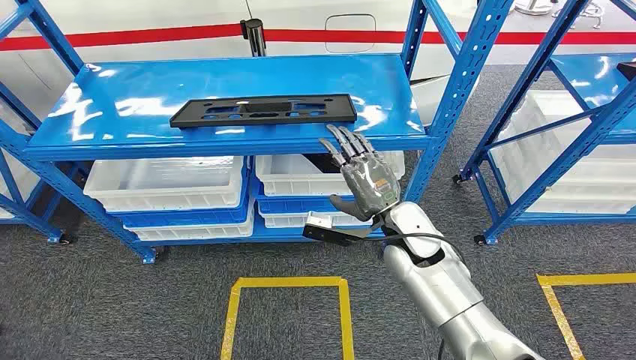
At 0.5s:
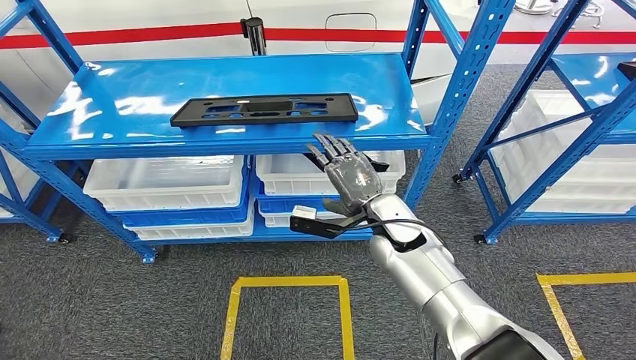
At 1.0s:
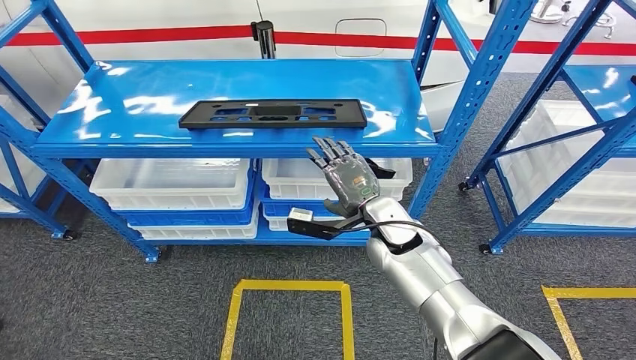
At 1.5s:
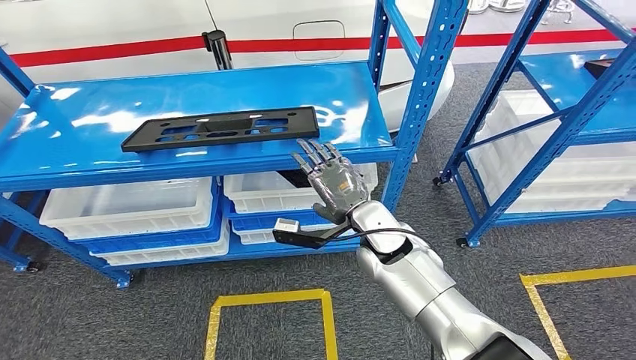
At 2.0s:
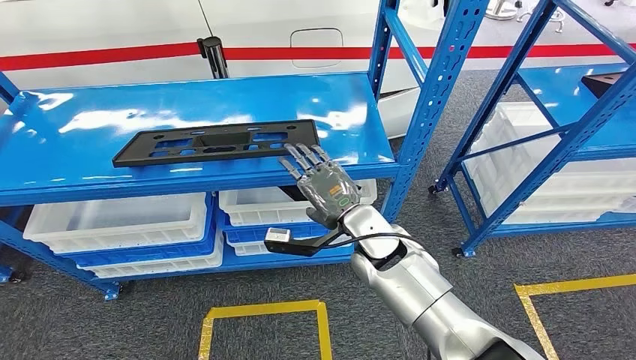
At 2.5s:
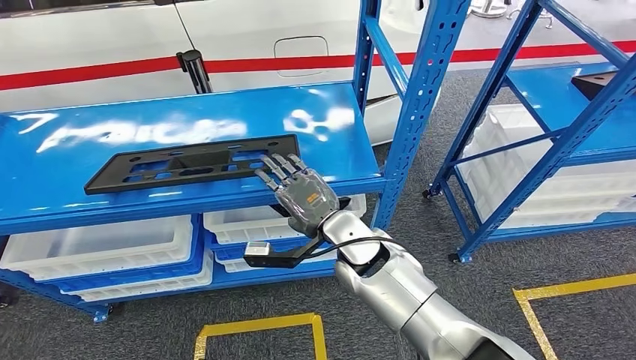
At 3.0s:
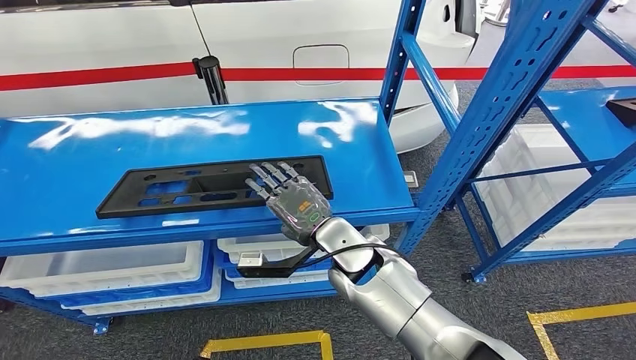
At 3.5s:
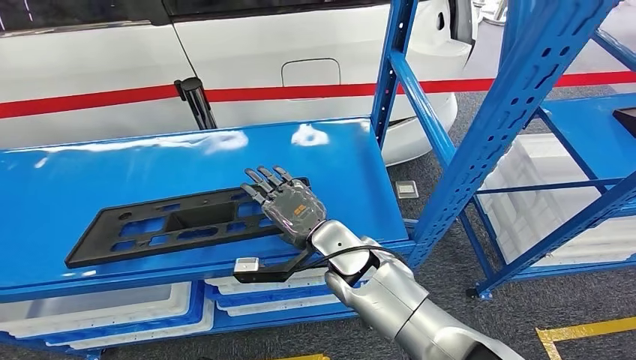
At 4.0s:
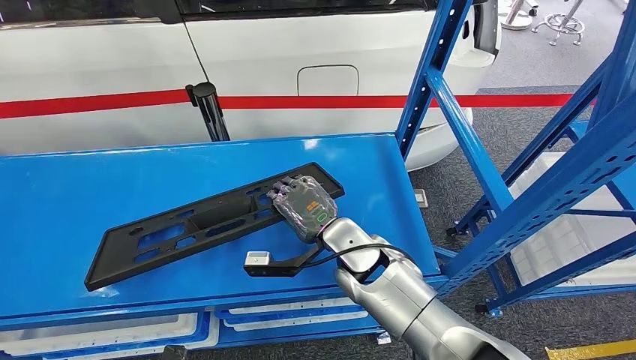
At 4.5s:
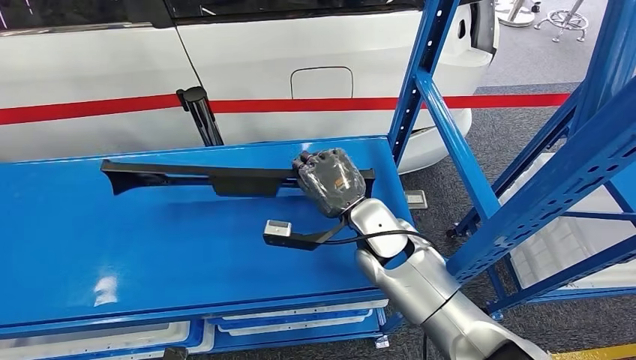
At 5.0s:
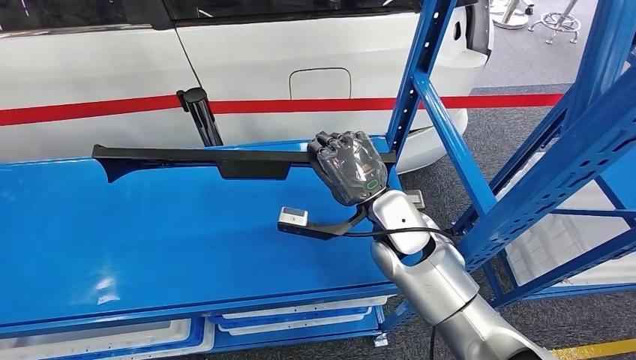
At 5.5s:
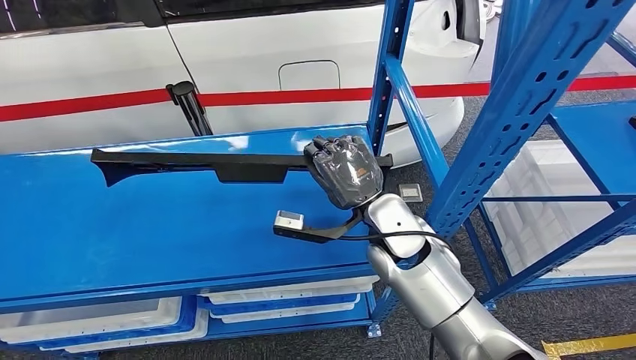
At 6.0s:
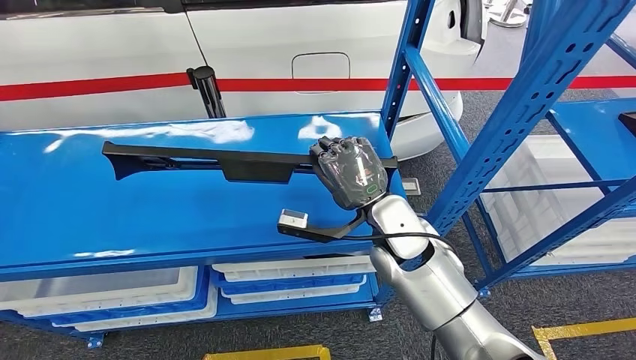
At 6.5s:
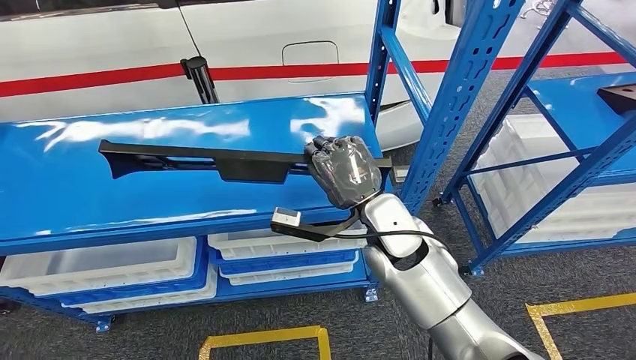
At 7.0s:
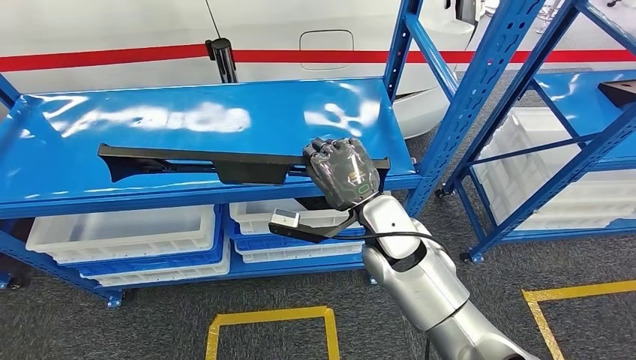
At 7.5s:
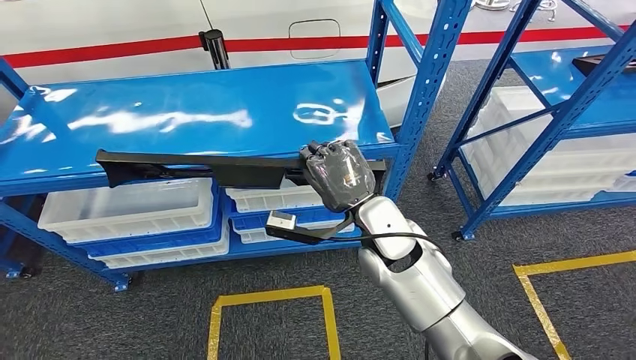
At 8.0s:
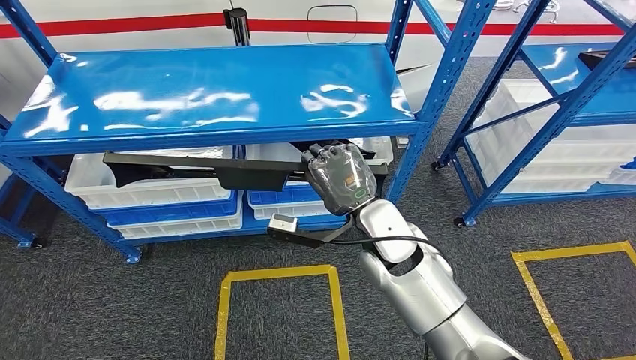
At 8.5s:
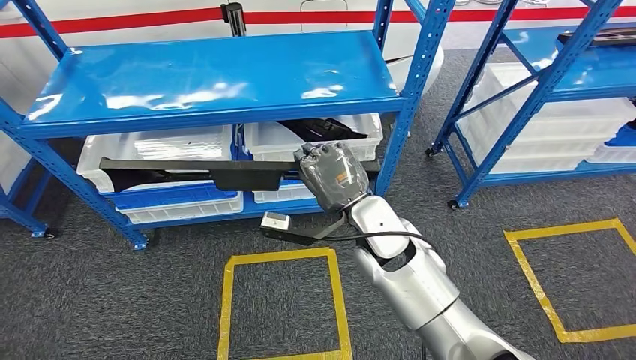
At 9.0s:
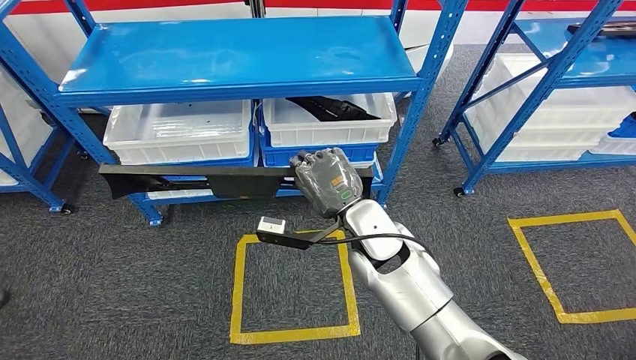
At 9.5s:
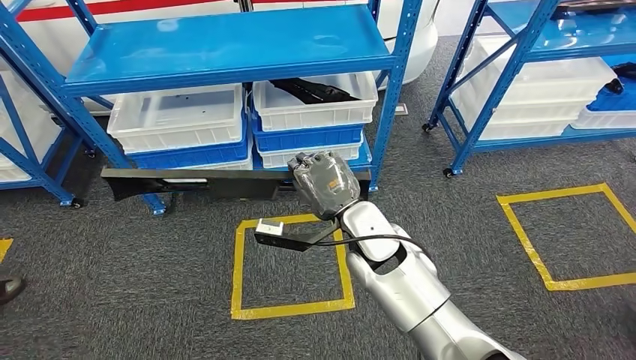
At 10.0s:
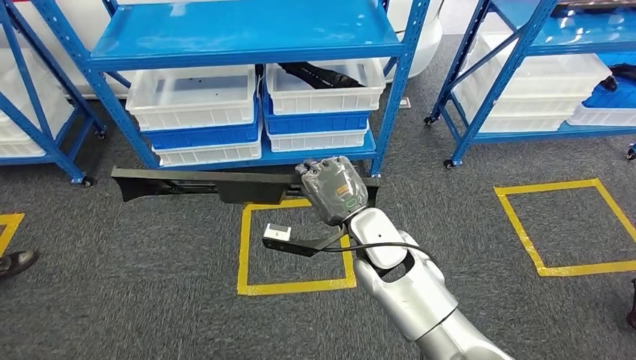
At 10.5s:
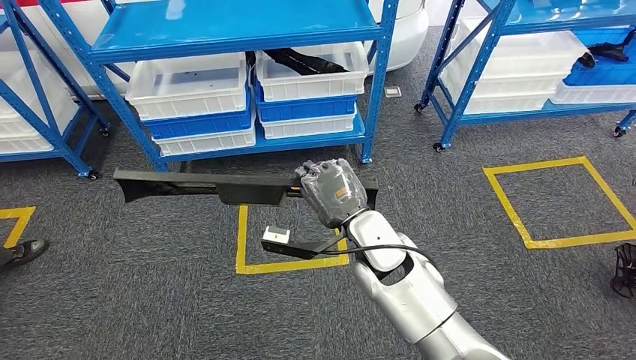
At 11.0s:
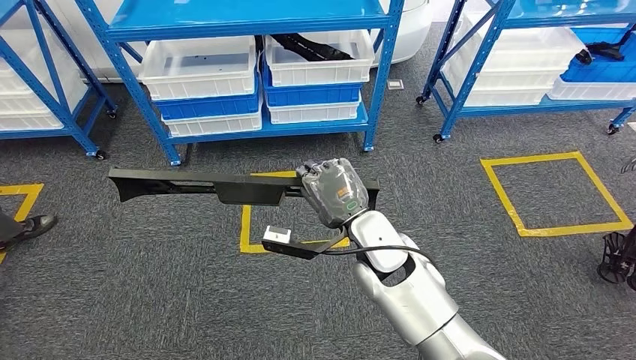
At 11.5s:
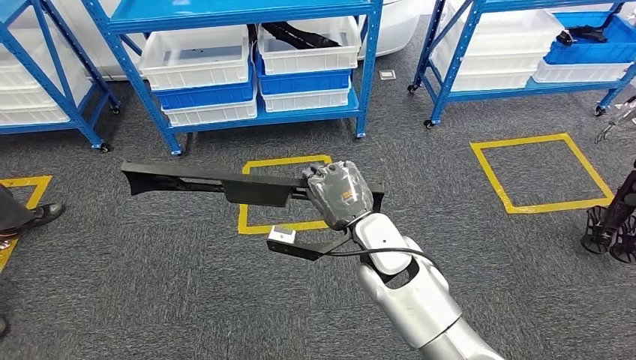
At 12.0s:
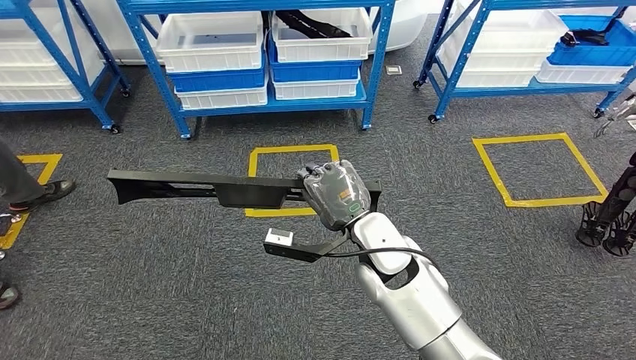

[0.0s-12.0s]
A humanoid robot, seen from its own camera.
Step, 0.0s to 8.5s: Pick up the large material from the shelf.

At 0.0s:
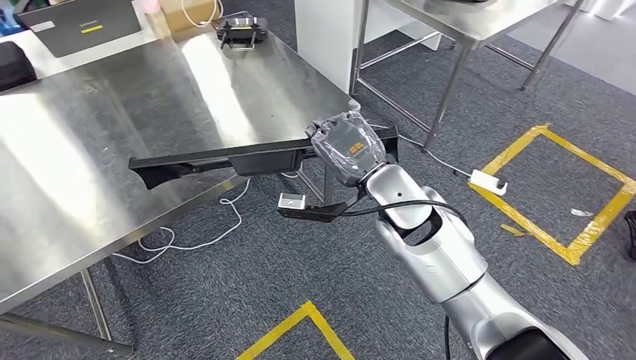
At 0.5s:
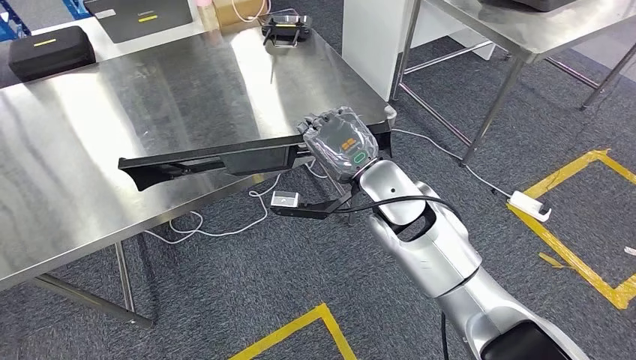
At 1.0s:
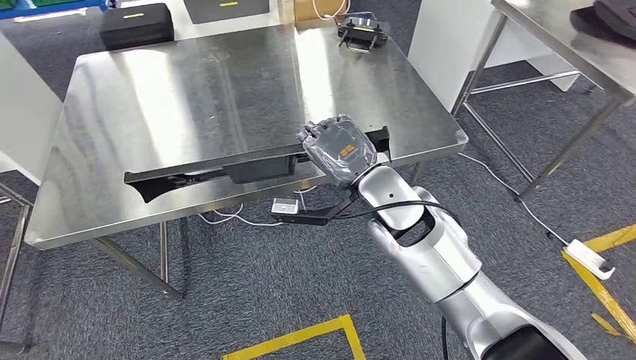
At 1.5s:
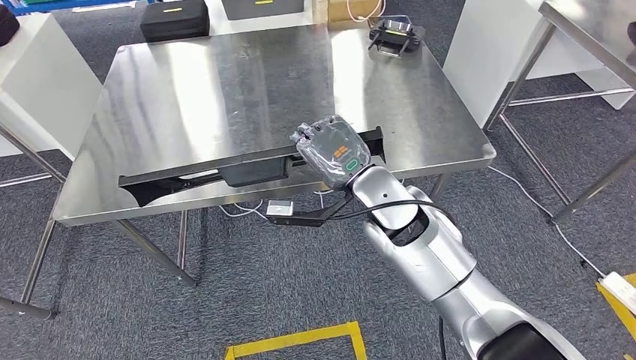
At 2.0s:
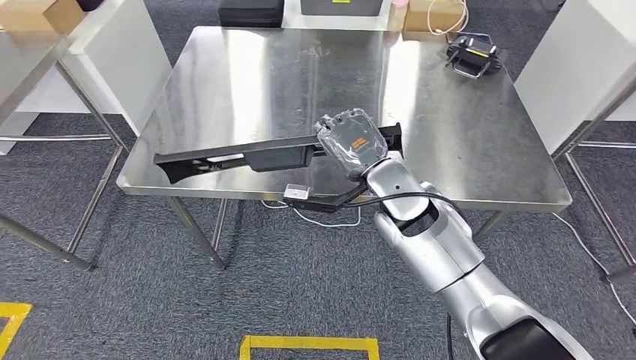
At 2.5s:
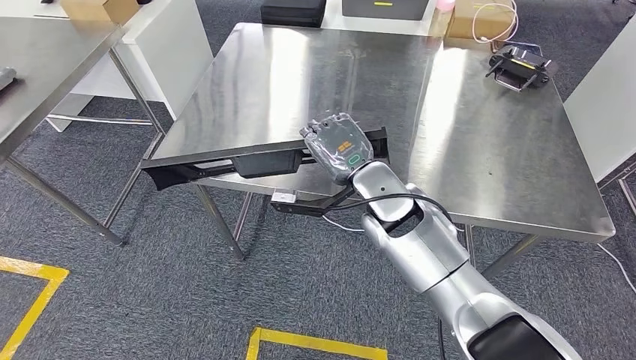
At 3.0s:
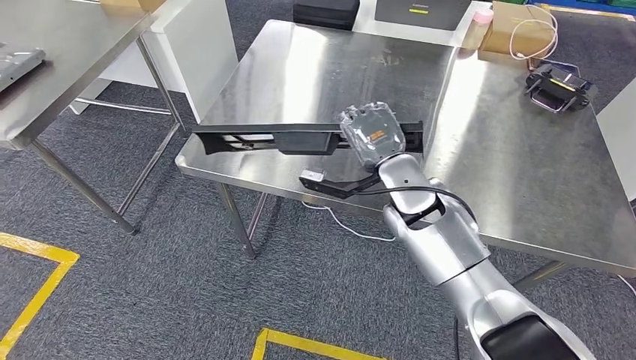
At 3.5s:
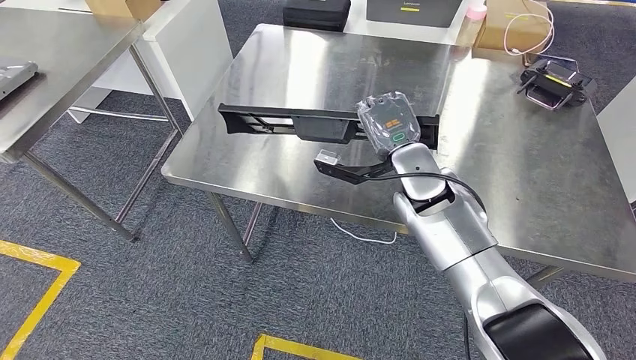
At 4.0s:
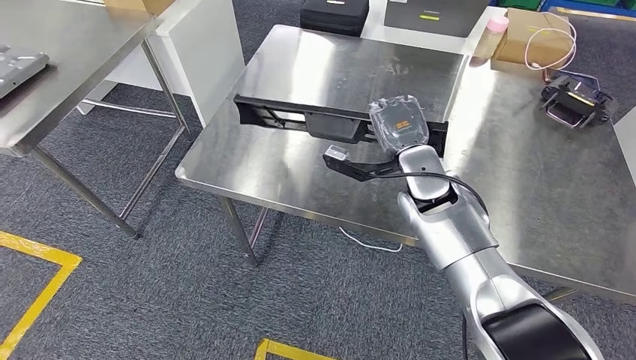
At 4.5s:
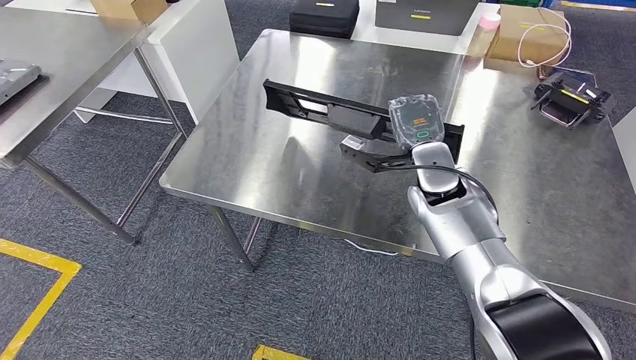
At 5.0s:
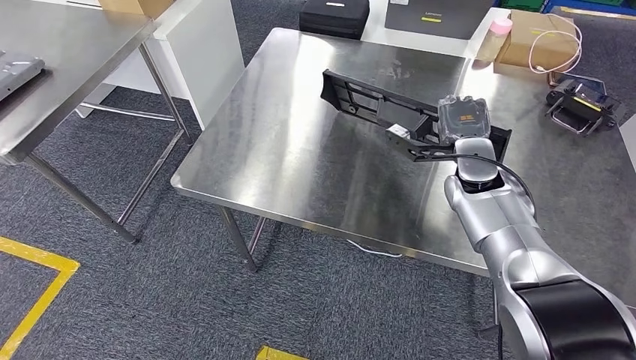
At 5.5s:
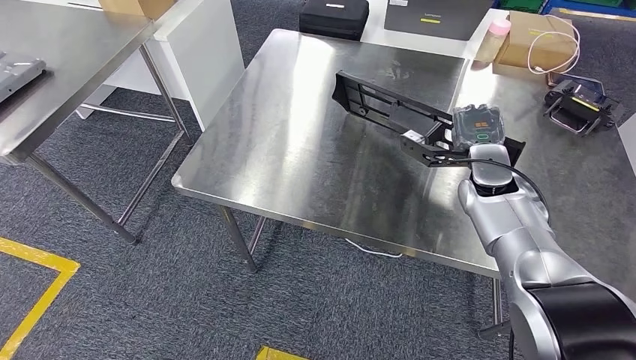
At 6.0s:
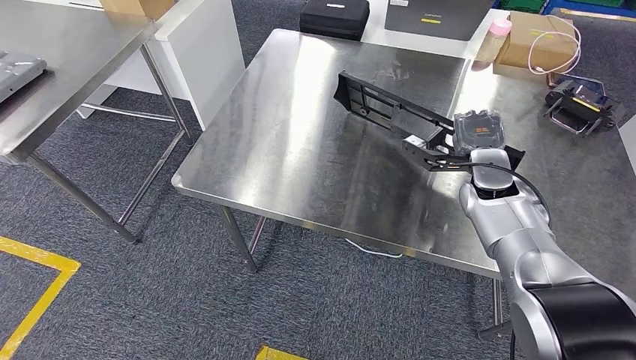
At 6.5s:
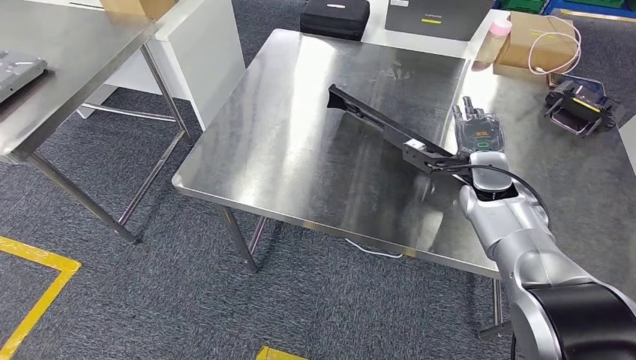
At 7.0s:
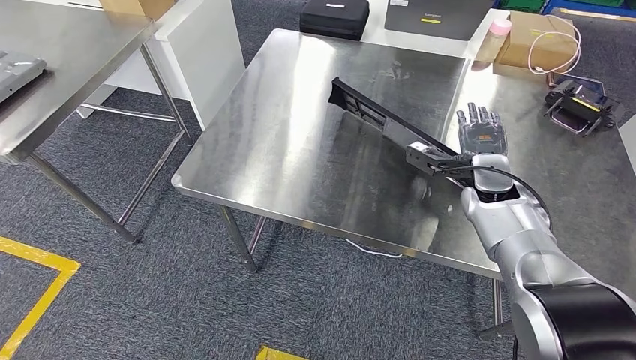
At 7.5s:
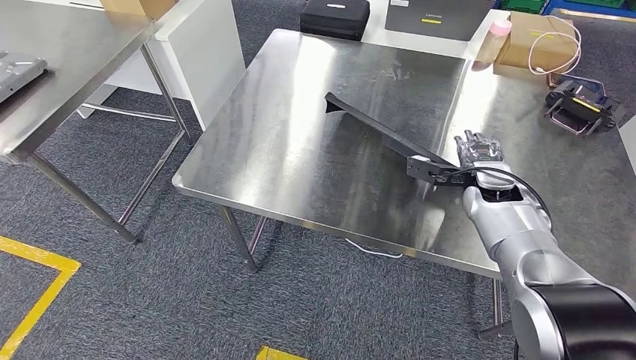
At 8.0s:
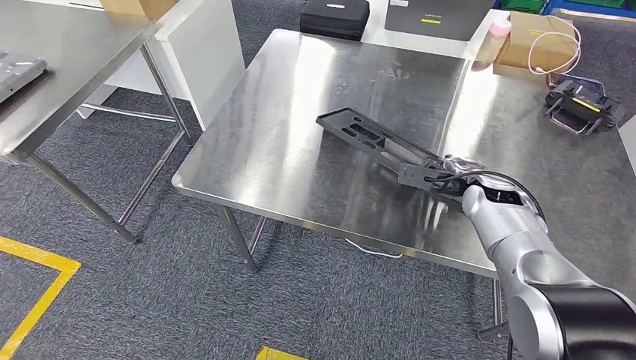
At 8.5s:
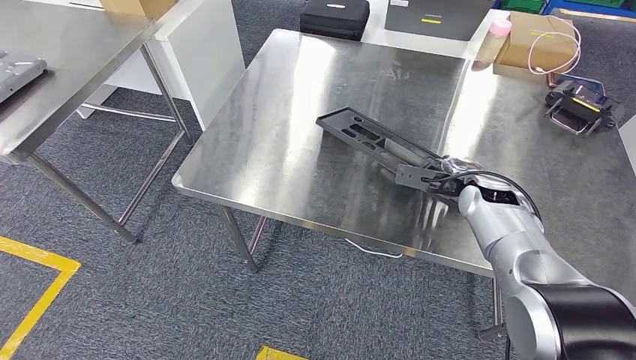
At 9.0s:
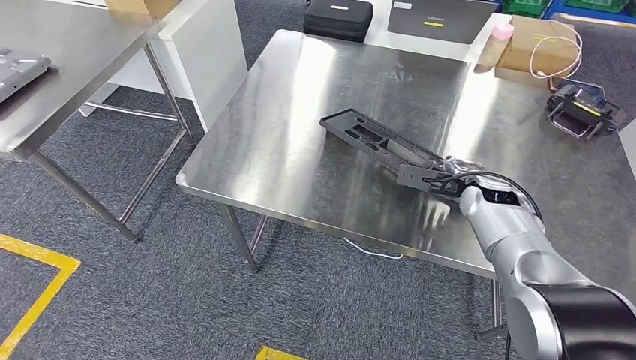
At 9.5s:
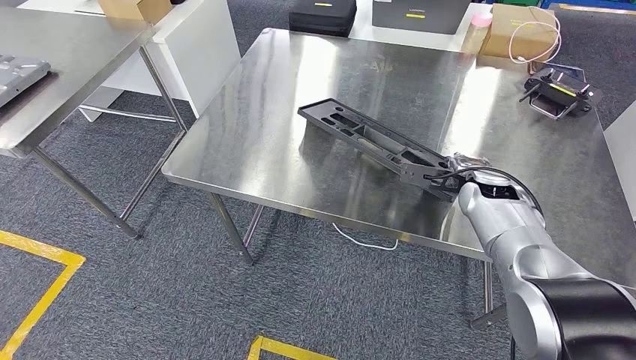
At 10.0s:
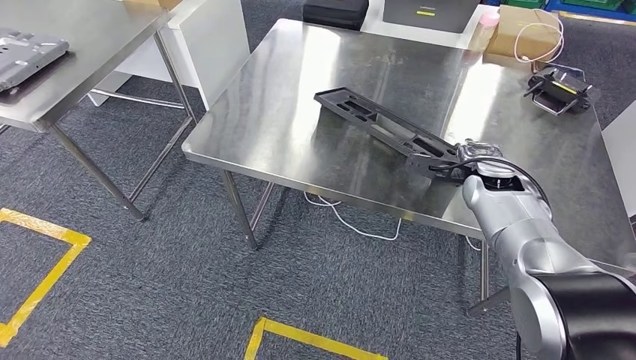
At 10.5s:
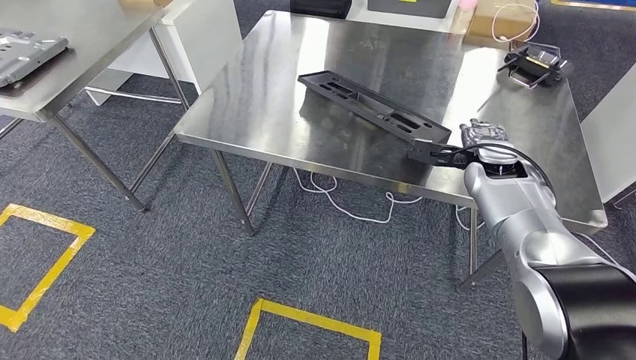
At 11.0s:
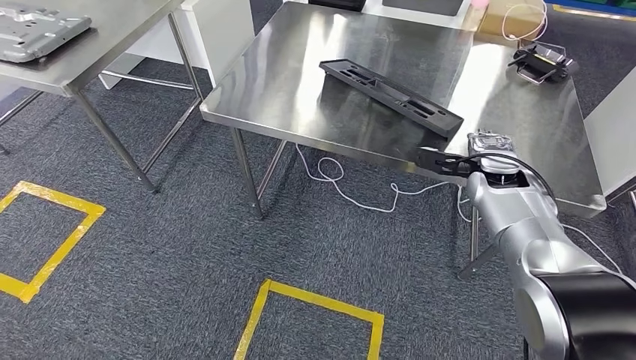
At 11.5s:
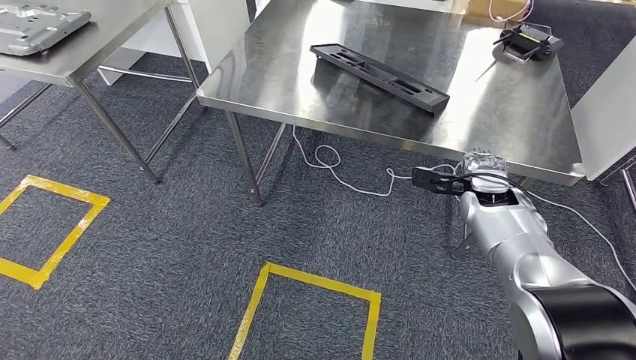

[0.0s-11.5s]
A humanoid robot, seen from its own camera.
Step, 0.0s to 10.0s: Insert the large material into the corresponding slot on the workbench.
